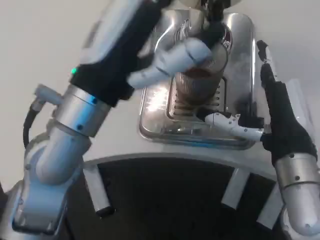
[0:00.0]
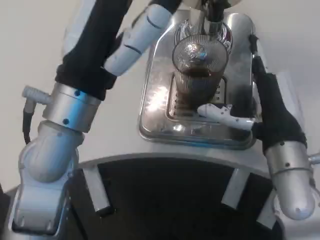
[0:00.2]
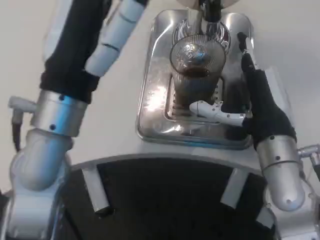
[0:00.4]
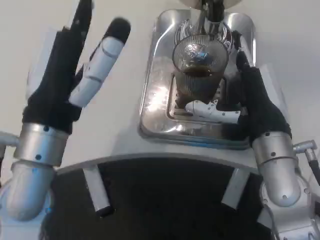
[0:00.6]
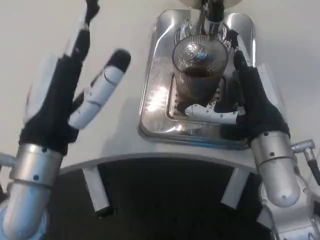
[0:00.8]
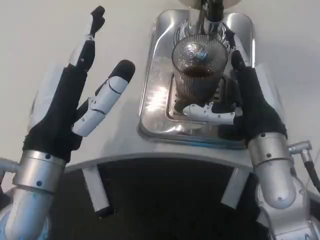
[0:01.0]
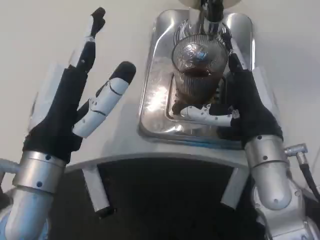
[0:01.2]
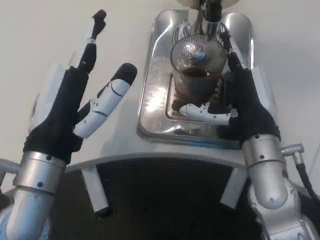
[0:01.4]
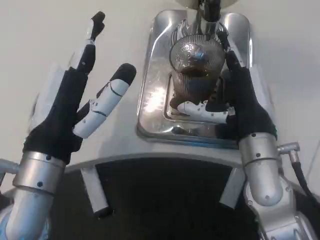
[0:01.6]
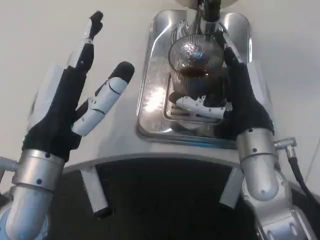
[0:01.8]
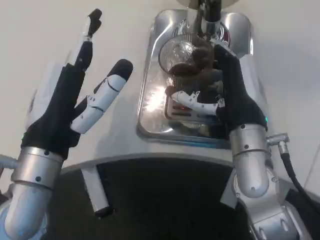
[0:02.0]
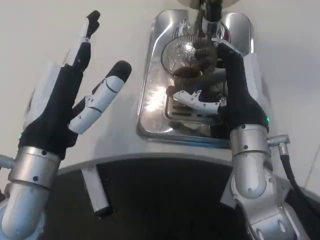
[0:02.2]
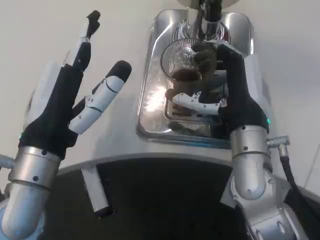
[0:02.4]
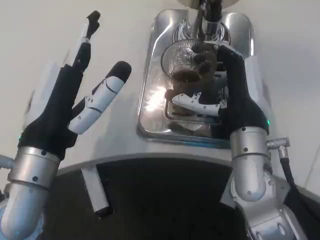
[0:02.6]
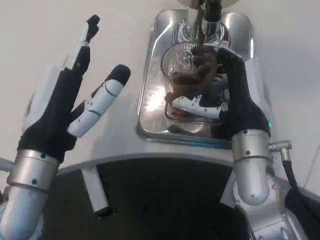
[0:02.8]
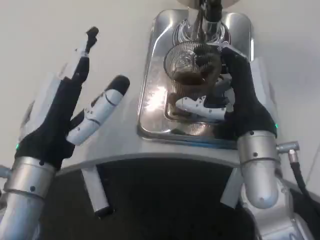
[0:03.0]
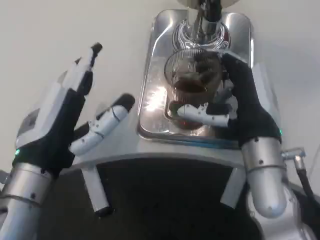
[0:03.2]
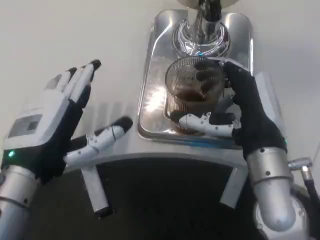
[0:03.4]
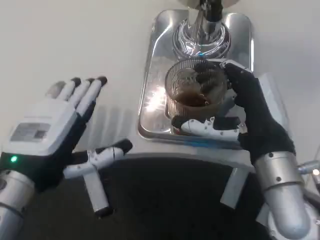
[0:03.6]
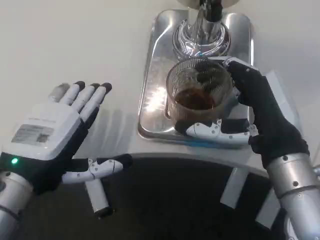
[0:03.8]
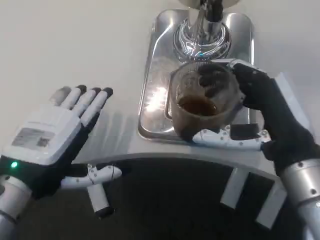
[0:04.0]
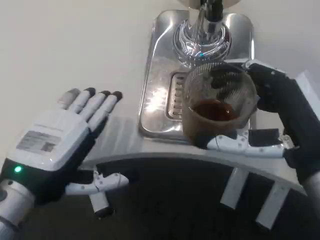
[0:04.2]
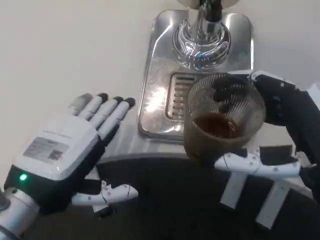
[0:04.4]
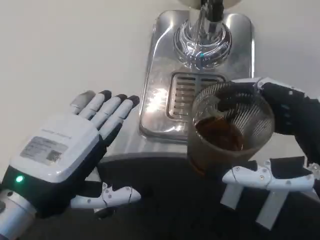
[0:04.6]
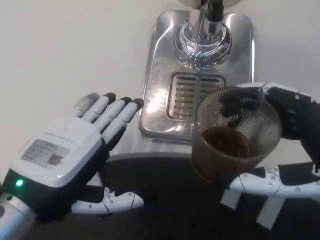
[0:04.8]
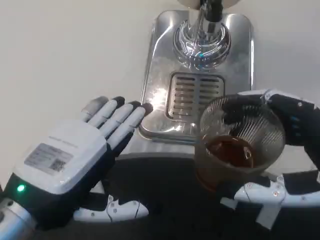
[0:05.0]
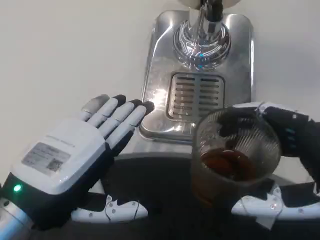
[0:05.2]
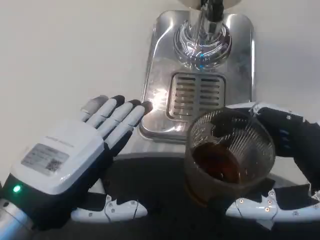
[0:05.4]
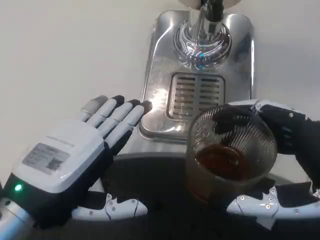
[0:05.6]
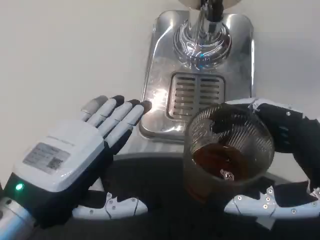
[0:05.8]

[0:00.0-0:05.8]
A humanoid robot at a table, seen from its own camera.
Task of the whole recording: Grasp the cup under the faucet to collect the drink, then remove the cup.
0:00.0 to 0:01.4: The left hand travels downward by approximately 5 cm.
0:02.8 to 0:04.4: The left hand moves some 5 cm. Meanwhile the right hand goes some 15 cm backward and to the right.

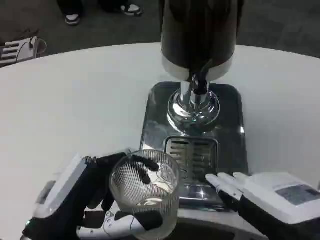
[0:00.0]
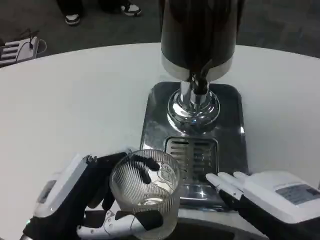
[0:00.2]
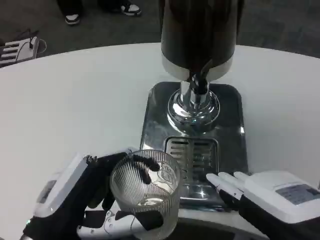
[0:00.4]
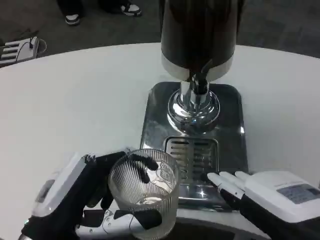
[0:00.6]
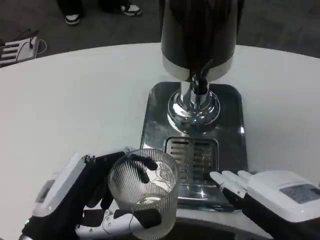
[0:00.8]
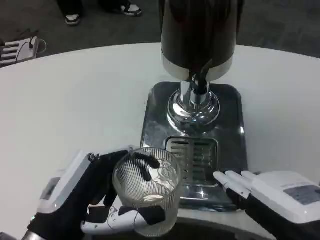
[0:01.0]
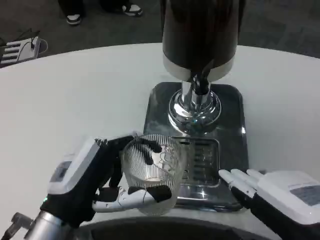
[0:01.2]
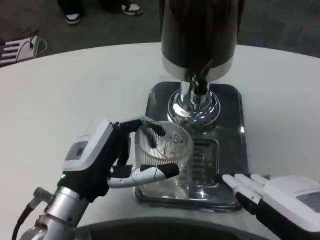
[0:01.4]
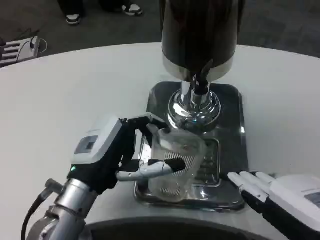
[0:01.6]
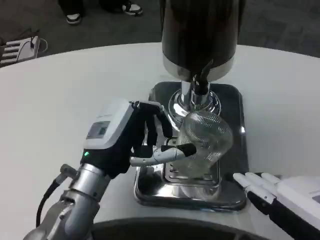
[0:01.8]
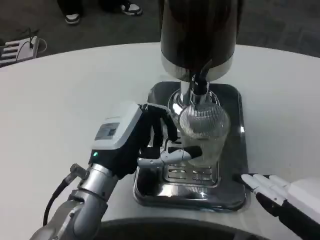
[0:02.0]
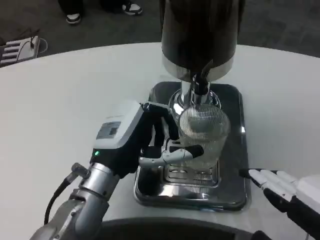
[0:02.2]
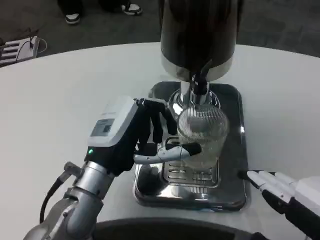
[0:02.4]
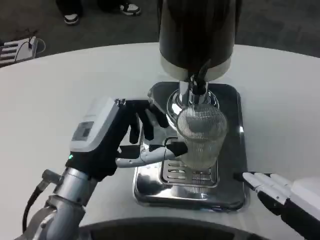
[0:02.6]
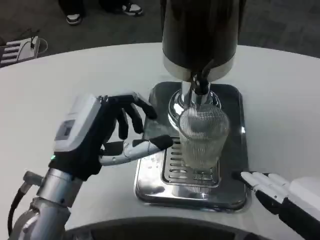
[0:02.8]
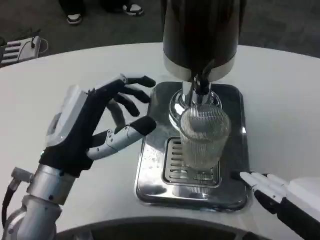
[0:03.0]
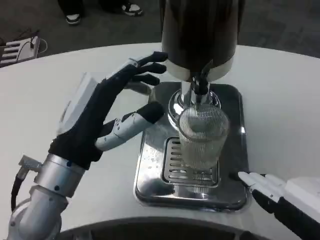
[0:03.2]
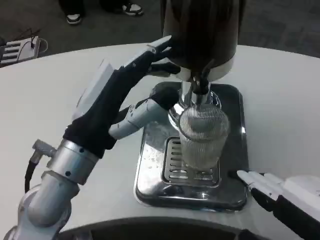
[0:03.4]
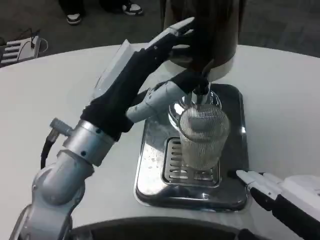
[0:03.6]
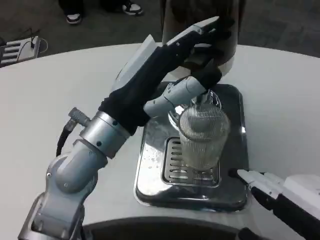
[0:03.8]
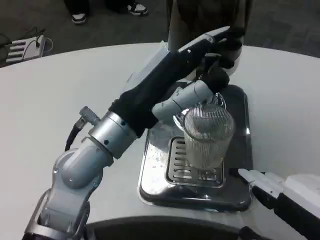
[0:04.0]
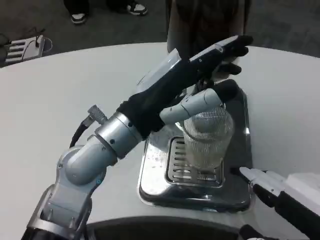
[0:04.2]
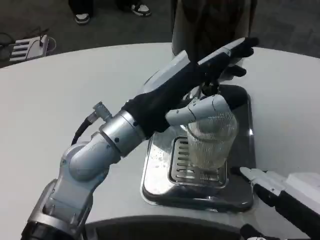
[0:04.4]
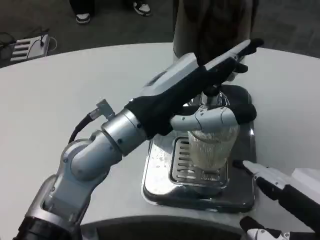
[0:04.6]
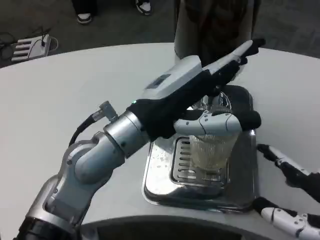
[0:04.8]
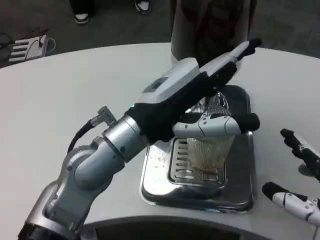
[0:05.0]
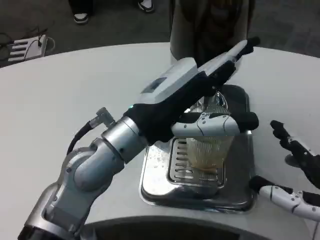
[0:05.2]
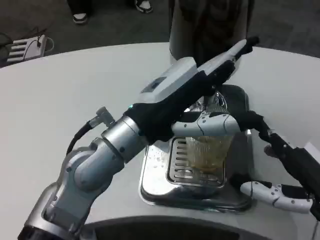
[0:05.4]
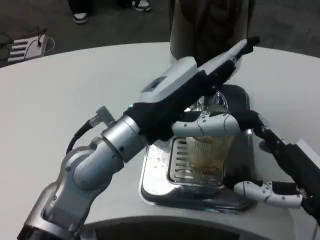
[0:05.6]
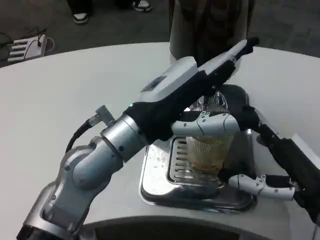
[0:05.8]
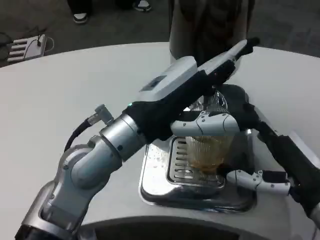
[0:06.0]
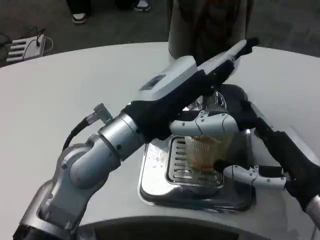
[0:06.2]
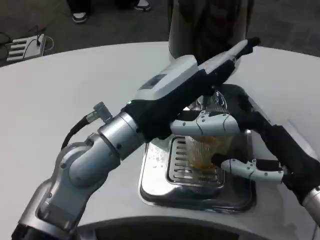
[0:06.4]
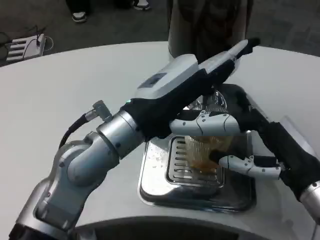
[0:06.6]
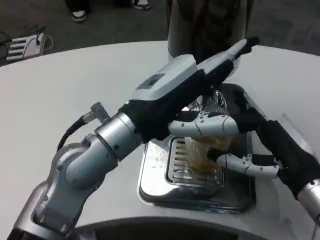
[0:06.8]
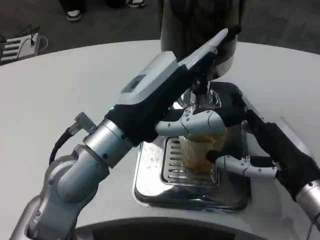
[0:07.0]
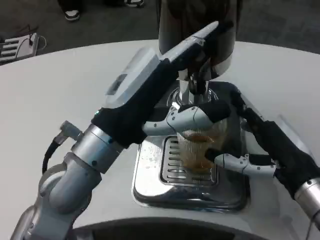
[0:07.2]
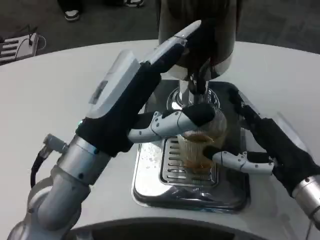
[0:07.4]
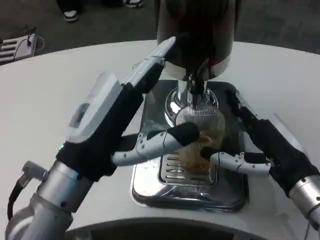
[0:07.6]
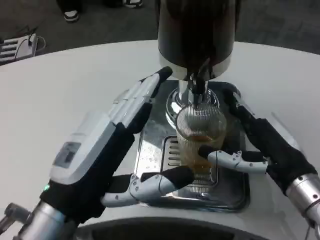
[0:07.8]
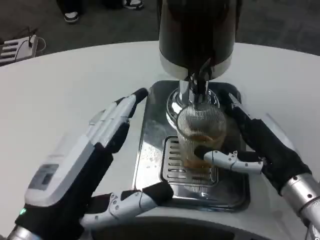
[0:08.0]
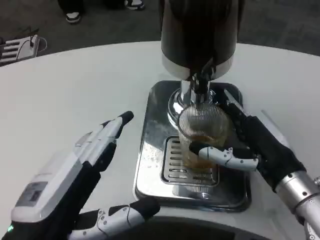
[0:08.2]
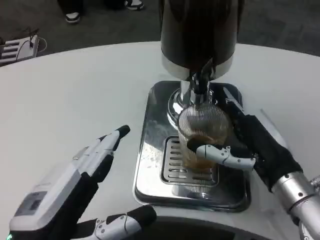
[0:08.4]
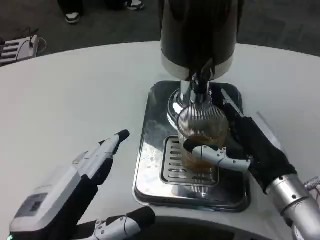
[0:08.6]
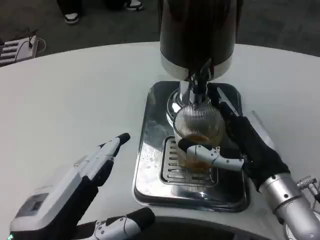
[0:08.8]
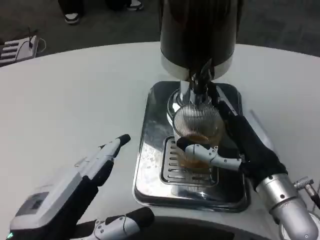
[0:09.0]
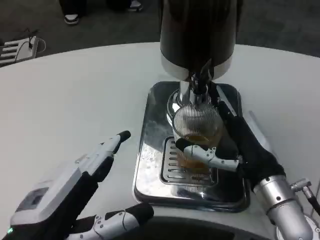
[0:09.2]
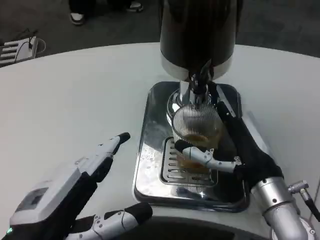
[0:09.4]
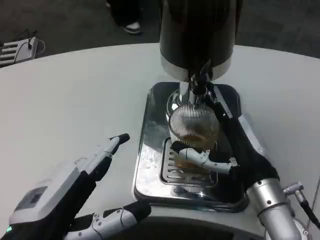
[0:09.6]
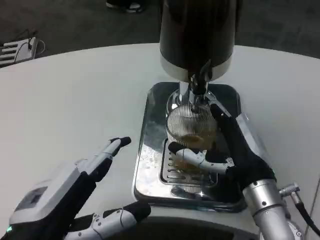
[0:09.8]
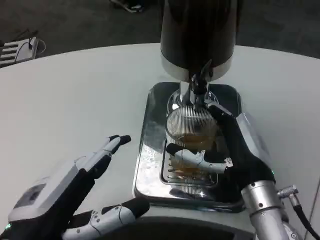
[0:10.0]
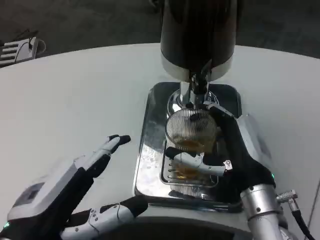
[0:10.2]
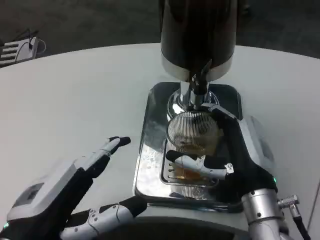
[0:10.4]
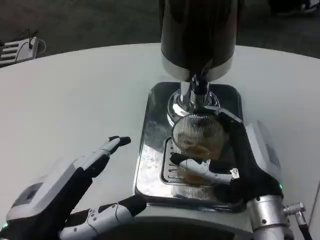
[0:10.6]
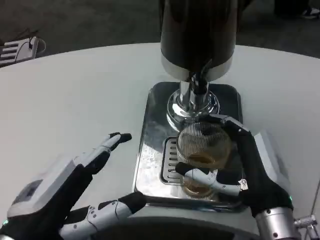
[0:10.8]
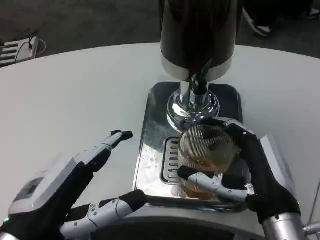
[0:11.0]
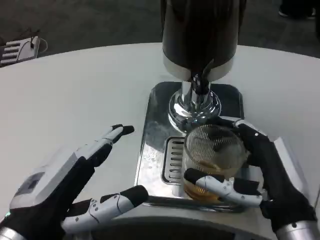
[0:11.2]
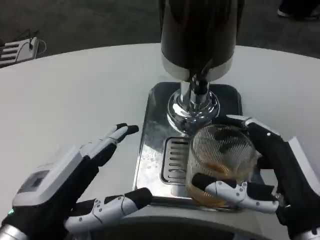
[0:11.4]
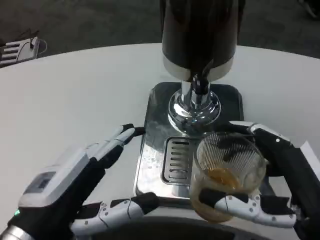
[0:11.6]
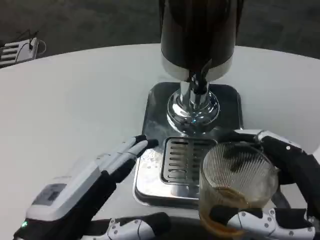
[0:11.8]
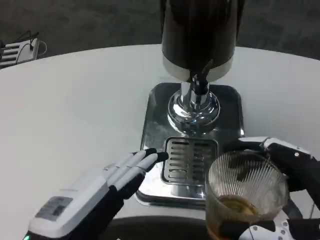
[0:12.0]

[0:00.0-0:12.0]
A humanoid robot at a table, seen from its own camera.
Task of the whole recording: Grasp the cup under the faucet to collect the drink, then remove the cup.
0:00.0 to 0:01.6: The left hand moves forward, roughly 10 cm.
0:03.0 to 0:04.4: The left hand moves upward and to the right, approximately 10 cm.
0:04.4 to 0:06.0: The right hand shifts some 15 cm forward and downward.
0:06.0 to 0:07.6: The left hand heads backward, covering approximately 5 cm.
0:07.6 to 0:09.0: The left hand goes approximately 10 cm backward.
0:10.4 to 0:12.0: The right hand shifts about 15 cm backward and to the right.

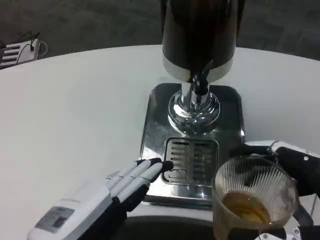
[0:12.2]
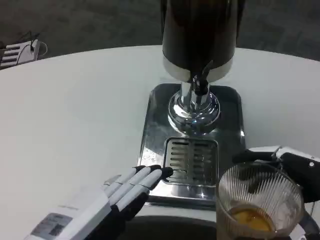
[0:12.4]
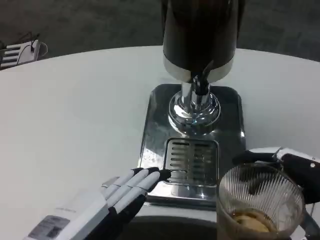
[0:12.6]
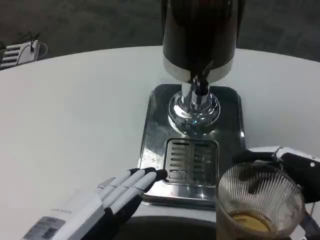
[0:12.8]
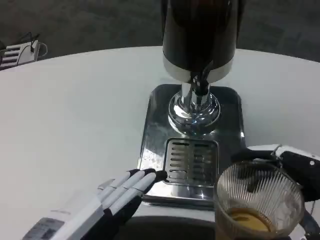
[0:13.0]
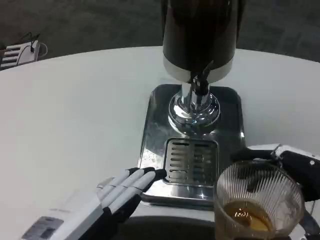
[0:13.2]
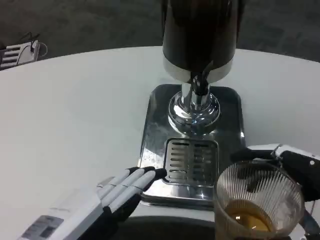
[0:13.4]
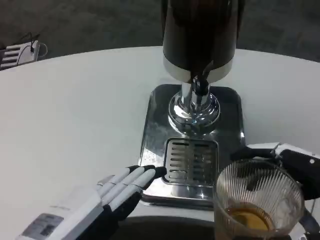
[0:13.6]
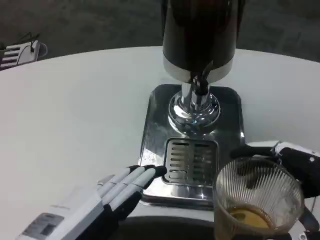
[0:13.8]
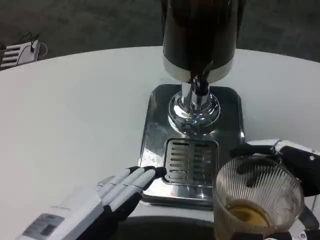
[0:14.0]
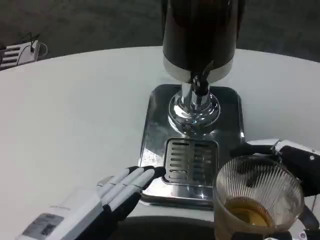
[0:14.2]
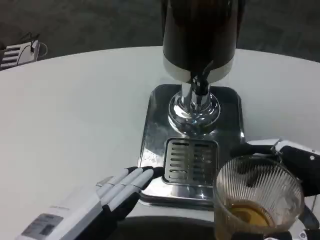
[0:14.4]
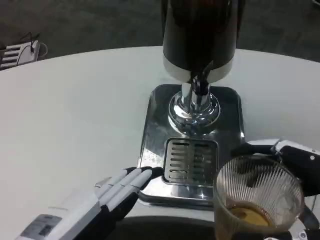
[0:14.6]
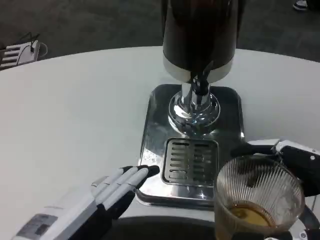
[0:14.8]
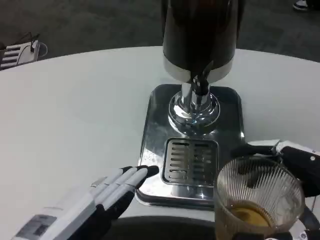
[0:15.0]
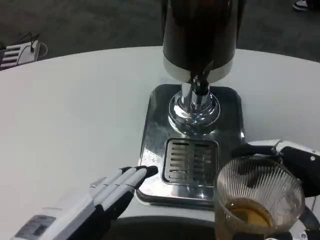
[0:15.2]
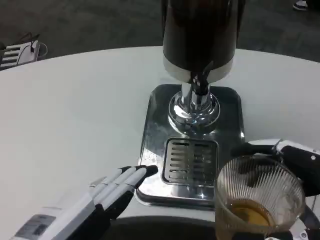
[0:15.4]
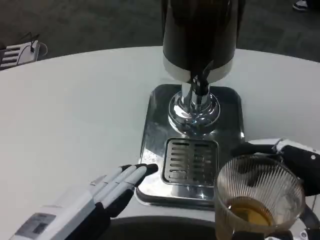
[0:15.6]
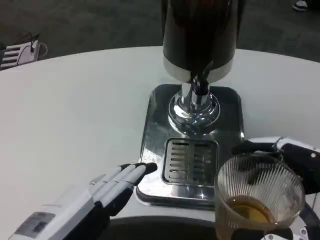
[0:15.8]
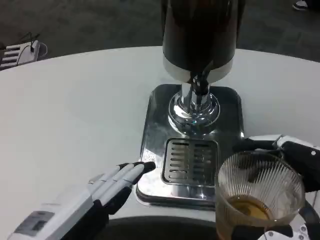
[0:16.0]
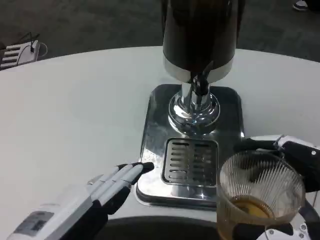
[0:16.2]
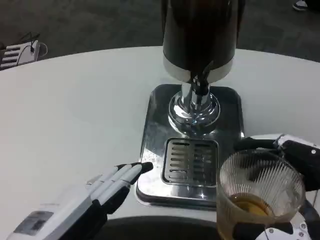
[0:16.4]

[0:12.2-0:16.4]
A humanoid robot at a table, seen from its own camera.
Task of the whole recording: Grasp the cup under the faucet to collect the drink, then remove the cup.
0:12.2 to 0:13.6: The hands move only a little.
0:13.6 to 0:16.4: Neither hand changes place.
